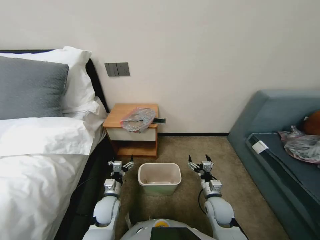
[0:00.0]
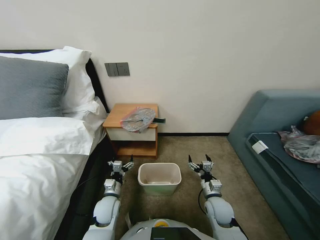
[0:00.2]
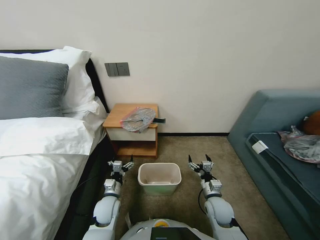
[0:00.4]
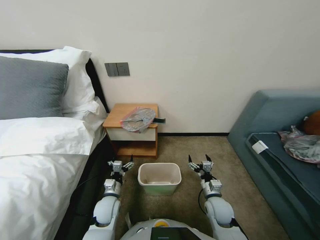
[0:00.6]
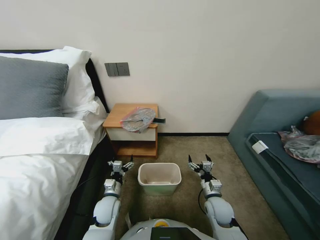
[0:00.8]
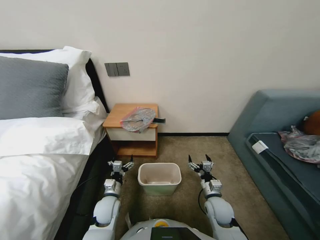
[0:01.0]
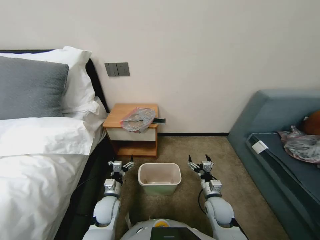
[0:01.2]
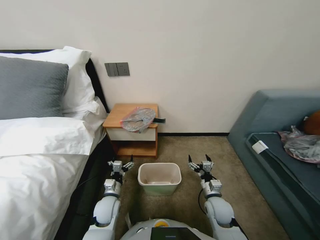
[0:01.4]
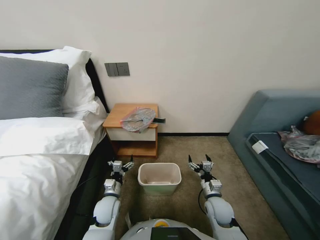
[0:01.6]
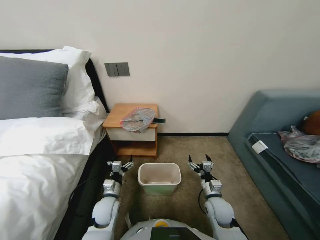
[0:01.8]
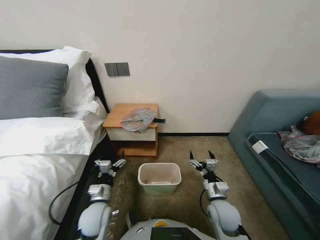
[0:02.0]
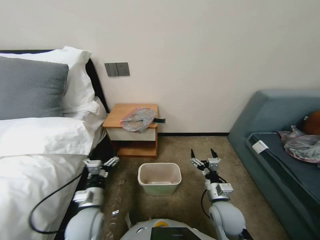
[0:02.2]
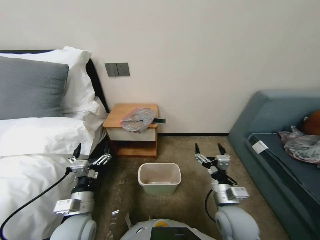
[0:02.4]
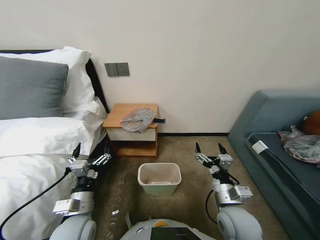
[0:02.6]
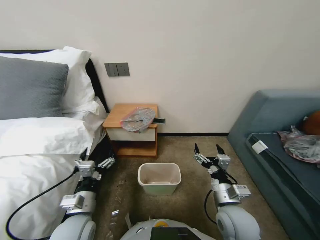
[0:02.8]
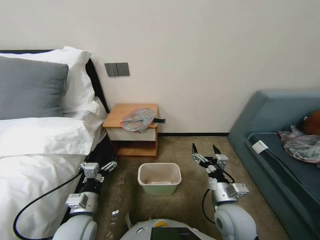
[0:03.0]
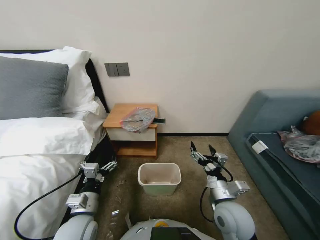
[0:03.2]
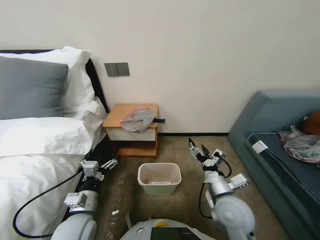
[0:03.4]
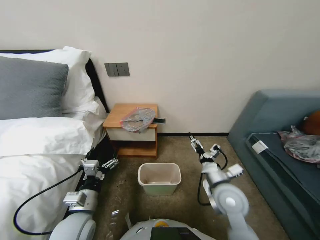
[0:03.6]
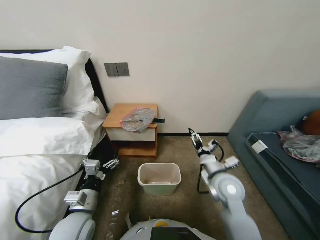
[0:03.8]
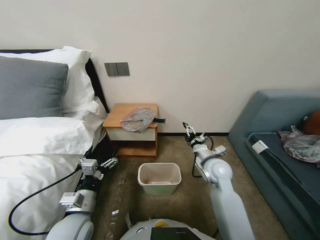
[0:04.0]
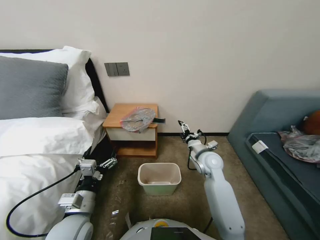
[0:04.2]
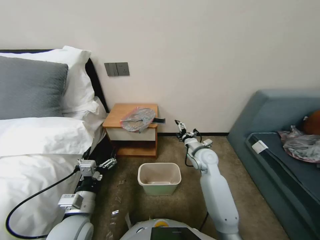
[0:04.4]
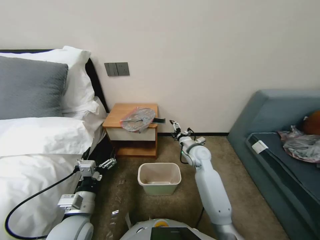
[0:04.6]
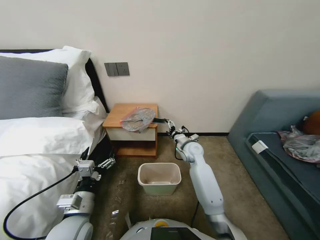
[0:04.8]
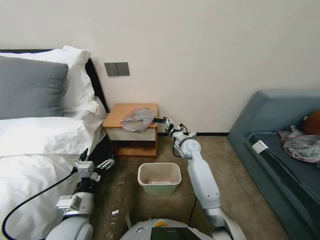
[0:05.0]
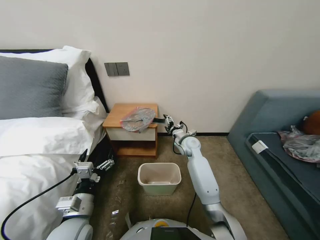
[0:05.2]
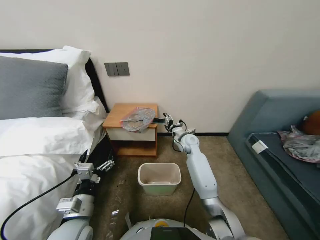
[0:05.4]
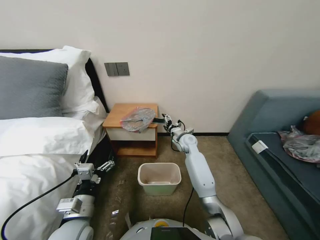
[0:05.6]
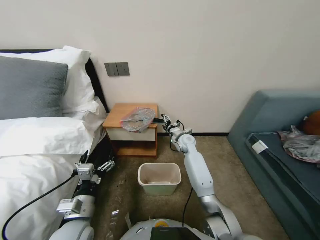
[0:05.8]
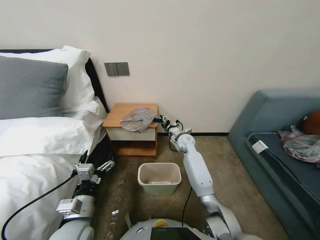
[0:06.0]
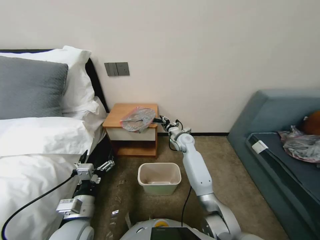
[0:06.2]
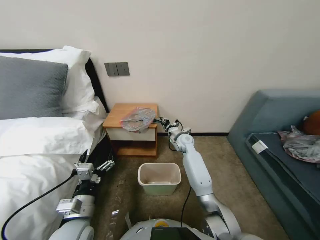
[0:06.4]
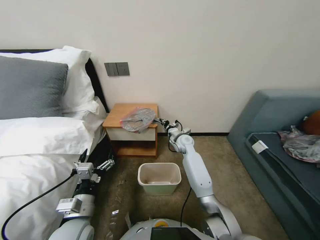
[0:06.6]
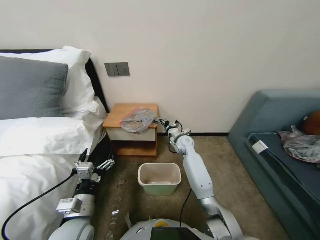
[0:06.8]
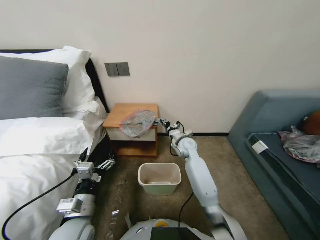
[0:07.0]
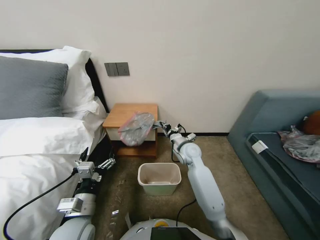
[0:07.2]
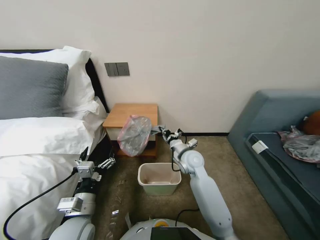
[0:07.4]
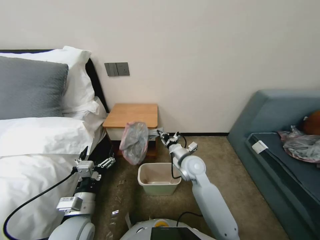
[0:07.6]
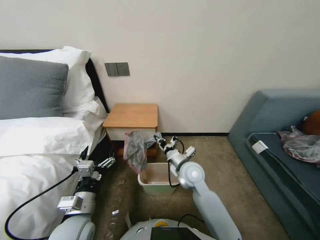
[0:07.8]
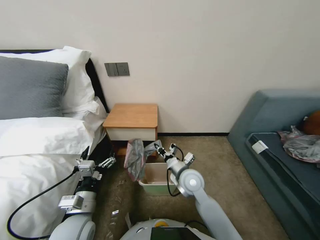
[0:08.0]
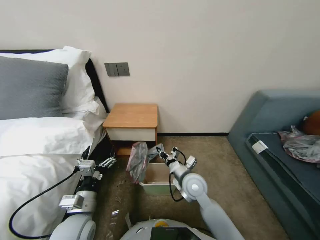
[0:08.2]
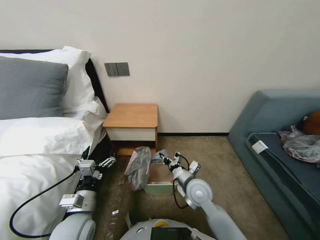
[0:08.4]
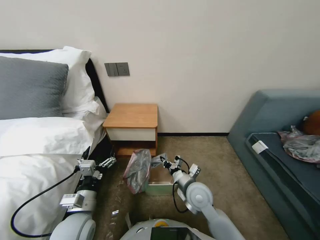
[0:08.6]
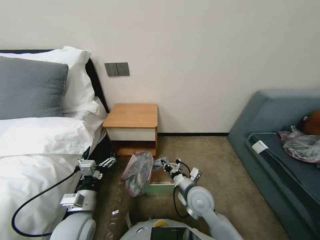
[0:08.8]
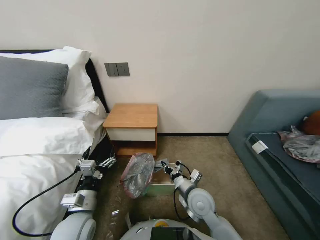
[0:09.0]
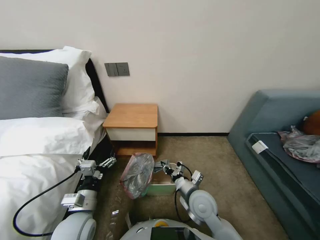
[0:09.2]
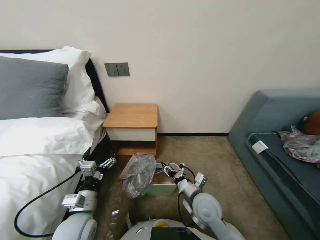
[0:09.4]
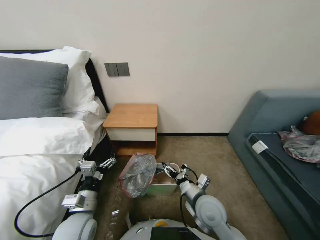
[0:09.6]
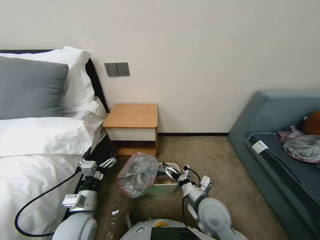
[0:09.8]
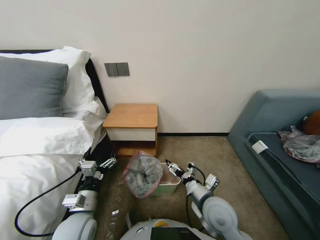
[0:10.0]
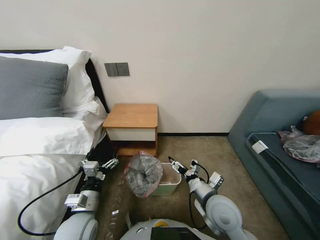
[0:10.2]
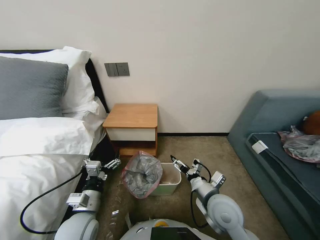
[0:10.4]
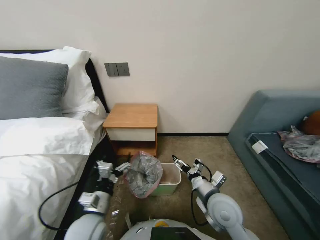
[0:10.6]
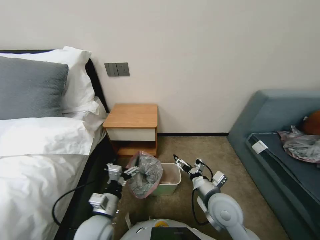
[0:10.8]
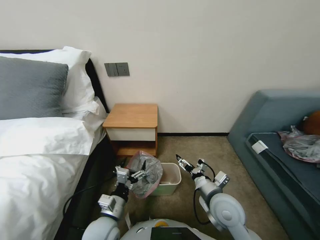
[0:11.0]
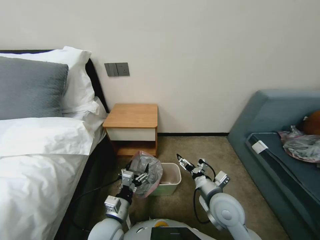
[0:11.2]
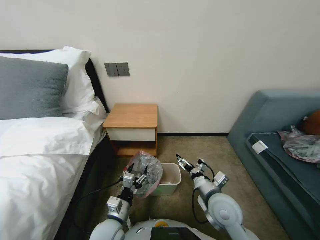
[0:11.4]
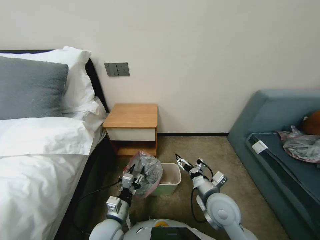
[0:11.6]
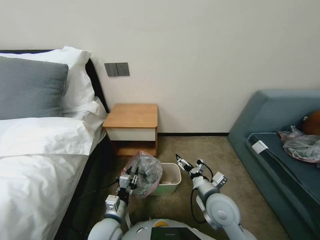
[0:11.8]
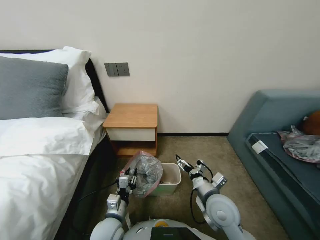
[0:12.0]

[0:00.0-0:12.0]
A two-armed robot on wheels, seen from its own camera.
Task of the whole recording: Pick up the garbage bag from the table and place it over the trash can.
0:01.6 to 0:03.0: The grippers both shift upward and backward by about 15 cm.
0:03.0 to 0:04.4: The right gripper goes roughly 20 cm forward.
0:04.4 to 0:06.0: The right gripper moves forward and to the left, some 15 cm.
0:06.0 to 0:07.6: The right gripper goes approximately 15 cm backward, and closes.
0:07.6 to 0:09.0: The right gripper travels backward and downward by roughly 15 cm.
0:09.0 to 0:10.4: The right gripper heads upward, covering roughly 5 cm, and opens up.
0:10.4 to 0:12.0: The left gripper travels to the right and downward by roughly 10 cm, and closes.

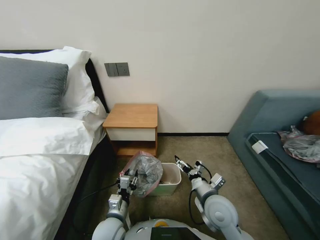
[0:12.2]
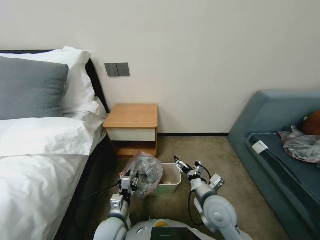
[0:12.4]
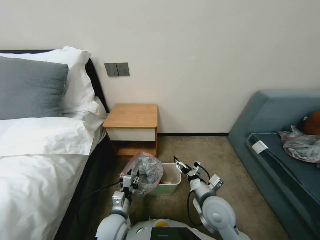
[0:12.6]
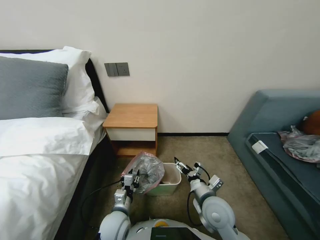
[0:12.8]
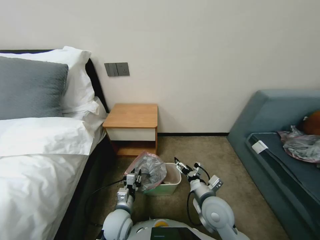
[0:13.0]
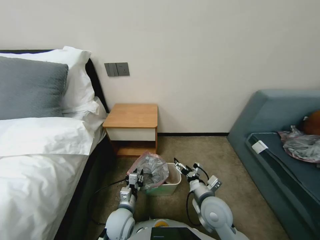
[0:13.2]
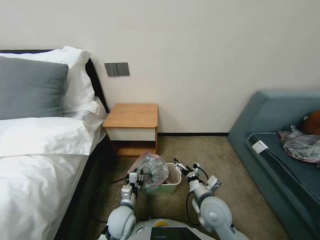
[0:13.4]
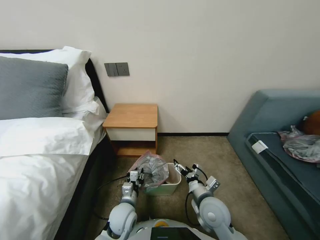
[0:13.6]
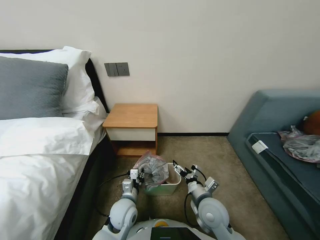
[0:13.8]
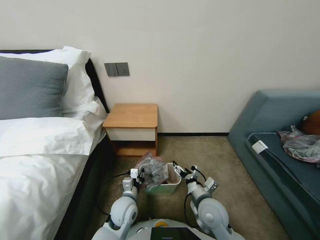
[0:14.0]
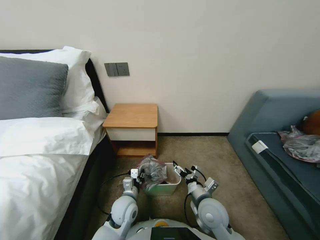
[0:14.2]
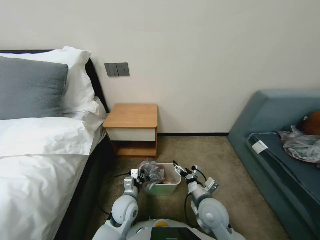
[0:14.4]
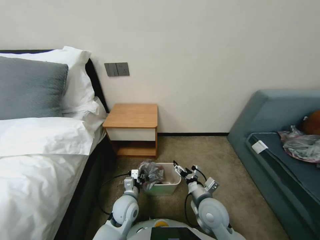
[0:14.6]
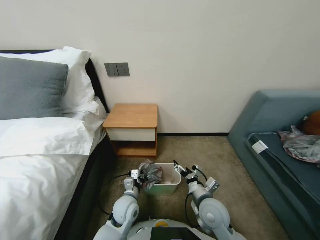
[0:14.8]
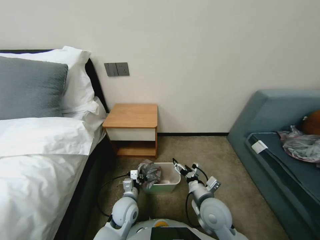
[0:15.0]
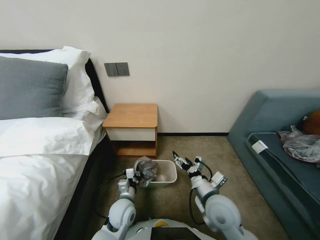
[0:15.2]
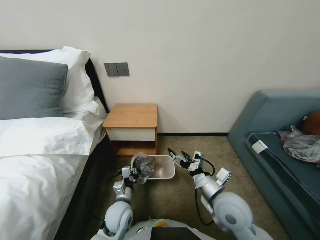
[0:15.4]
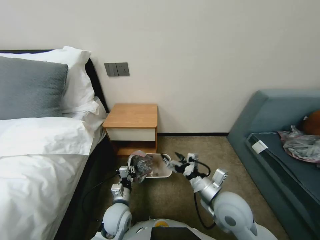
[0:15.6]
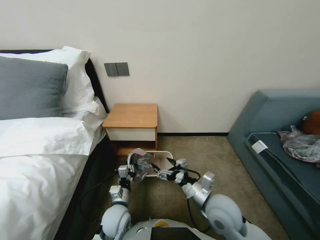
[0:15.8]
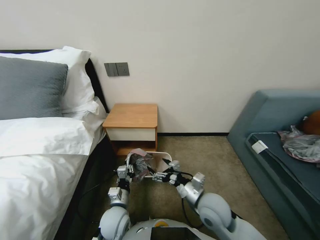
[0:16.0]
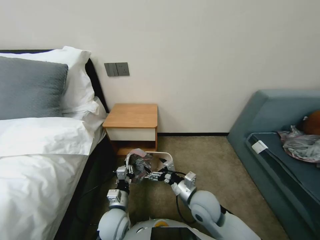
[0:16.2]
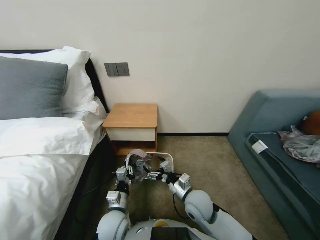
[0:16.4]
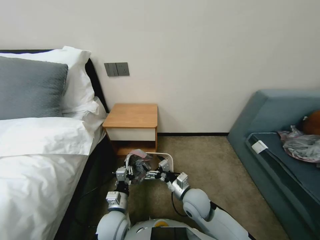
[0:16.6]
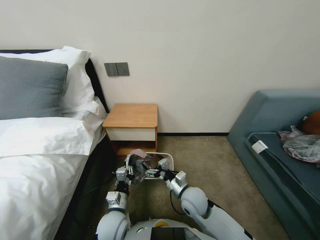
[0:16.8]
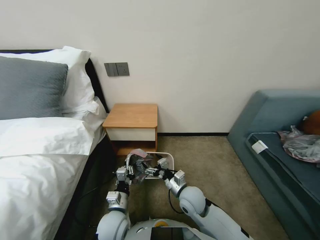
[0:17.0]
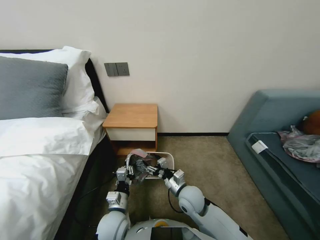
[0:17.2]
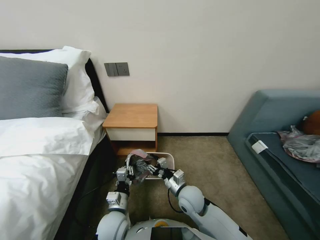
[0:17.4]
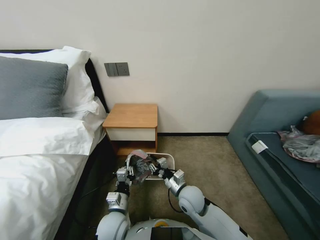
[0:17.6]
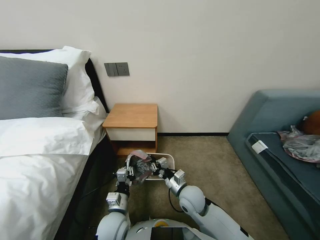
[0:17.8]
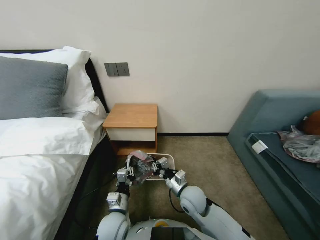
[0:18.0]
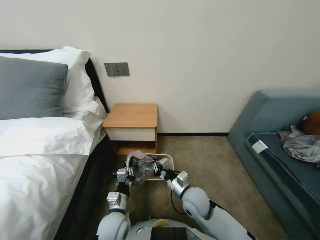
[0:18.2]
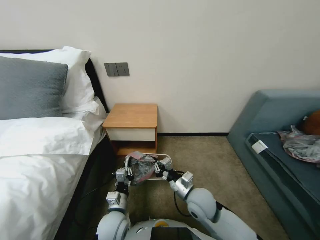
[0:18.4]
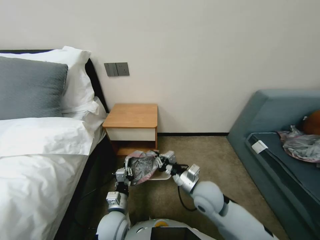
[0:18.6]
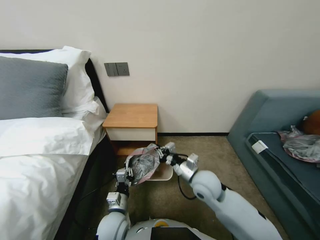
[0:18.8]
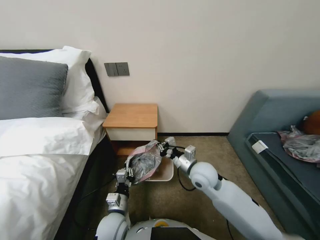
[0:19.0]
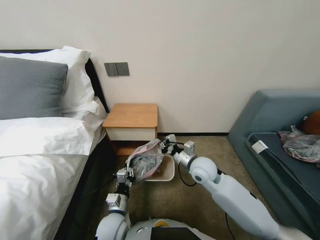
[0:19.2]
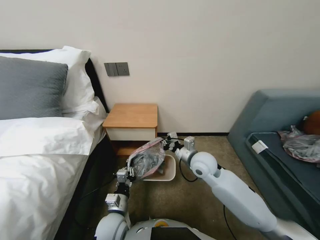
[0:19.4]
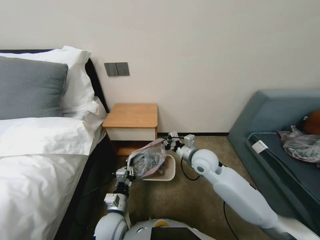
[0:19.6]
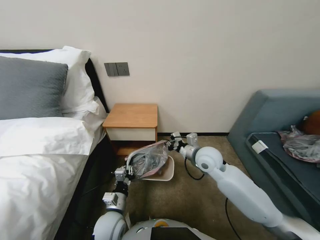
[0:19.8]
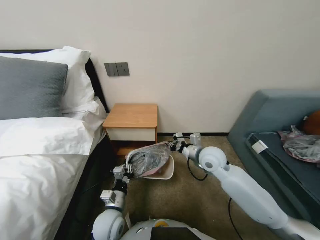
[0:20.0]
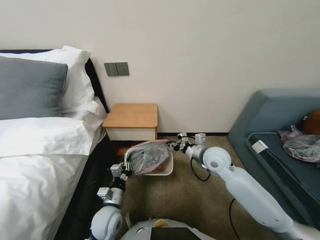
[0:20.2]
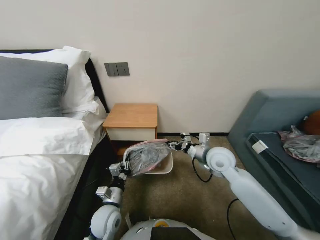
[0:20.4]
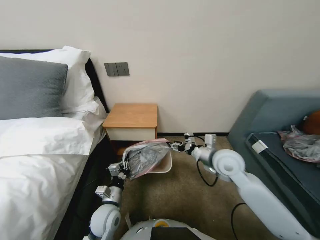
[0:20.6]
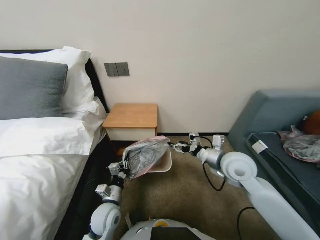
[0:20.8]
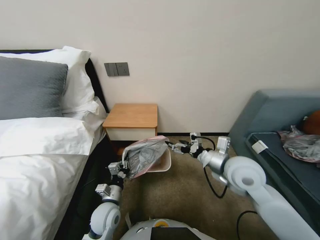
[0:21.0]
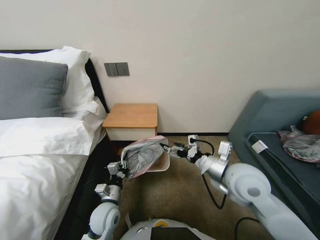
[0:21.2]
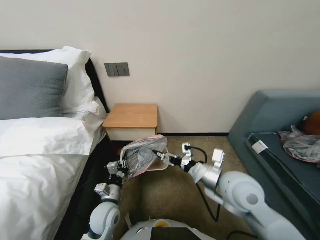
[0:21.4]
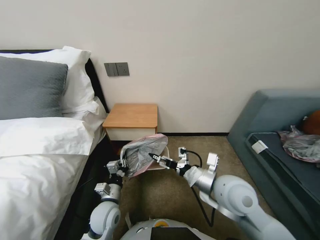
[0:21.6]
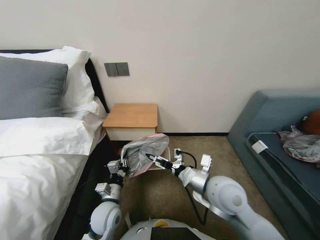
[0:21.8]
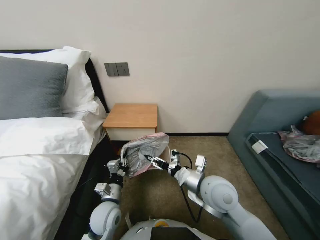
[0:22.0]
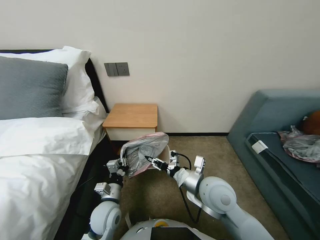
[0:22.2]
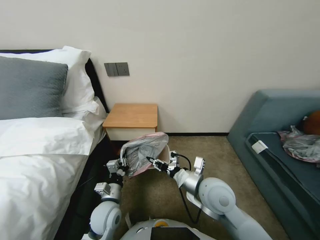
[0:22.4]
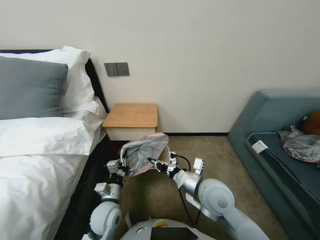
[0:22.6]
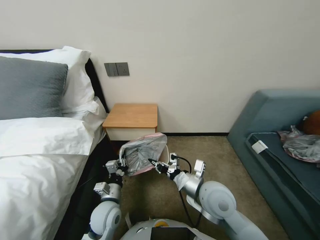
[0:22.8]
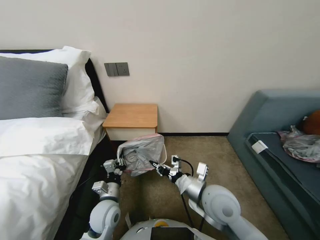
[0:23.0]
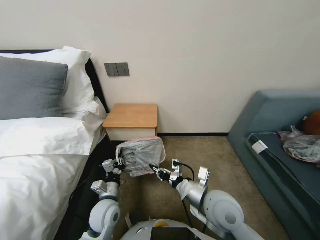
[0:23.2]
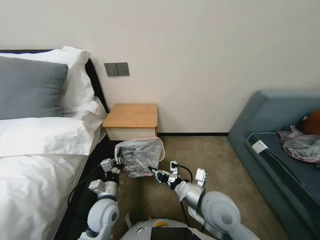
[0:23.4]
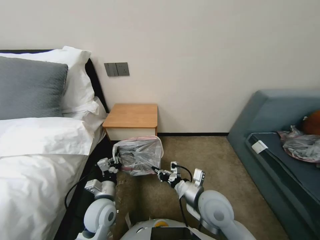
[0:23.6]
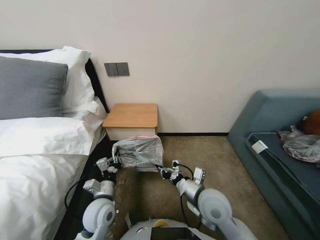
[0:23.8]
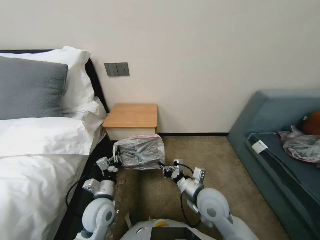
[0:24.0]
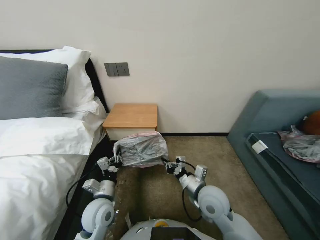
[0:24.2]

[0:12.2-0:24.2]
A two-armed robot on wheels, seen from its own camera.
Task of the whole recording: Pick up the garbage bag from the table and place it over the trash can.
0:12.2 to 0:13.8: The left gripper is displaced forward by some 5 cm.
0:13.8 to 0:15.2: The grippers stay close to where they were, moving slightly.
0:15.2 to 0:16.6: The right gripper moves to the left, about 5 cm. Meanwhile the left gripper ends up about 5 cm from where it was.
0:16.6 to 0:18.2: The right gripper closes.
0:18.2 to 0:19.8: The right gripper travels forward, upward and to the right by some 15 cm.
0:19.8 to 0:21.2: The right gripper moves backward, upward and to the right, roughly 10 cm, and opens.
0:21.2 to 0:22.6: The right gripper shifts some 10 cm to the left and downward, and closes up.
0:22.6 to 0:24.2: The right gripper is displaced downward by approximately 5 cm.
